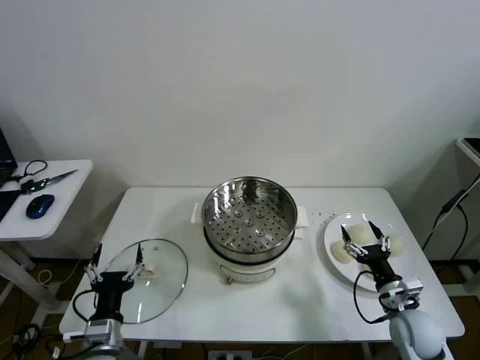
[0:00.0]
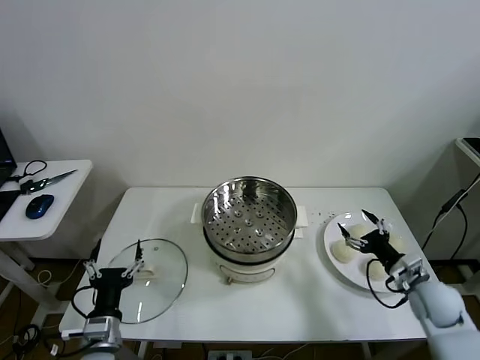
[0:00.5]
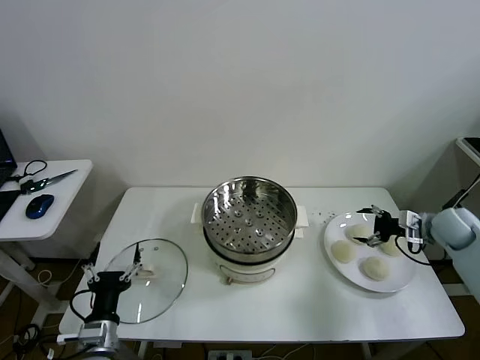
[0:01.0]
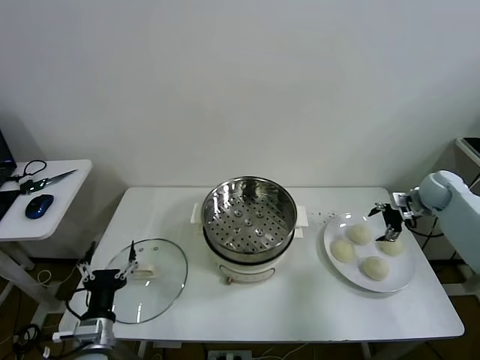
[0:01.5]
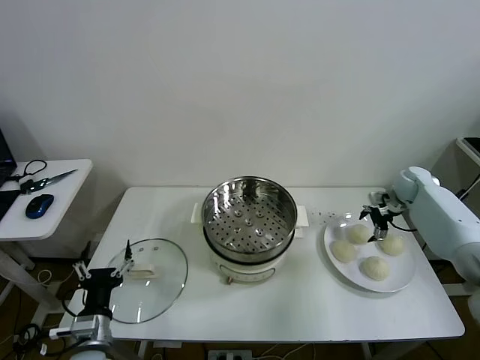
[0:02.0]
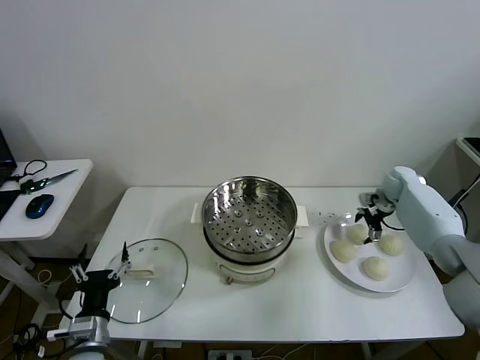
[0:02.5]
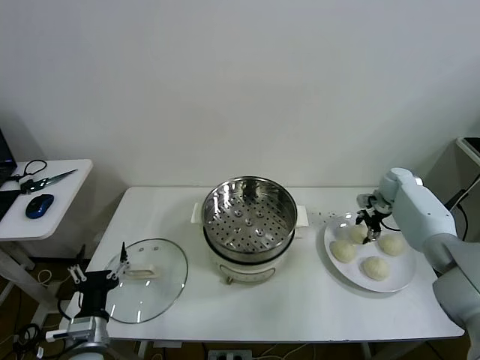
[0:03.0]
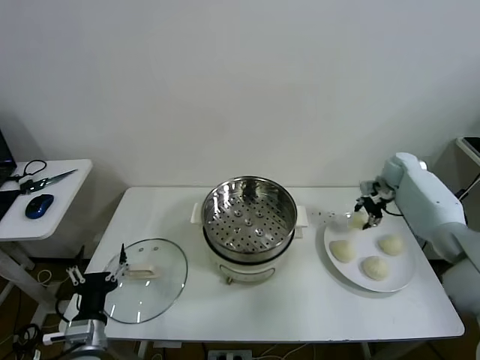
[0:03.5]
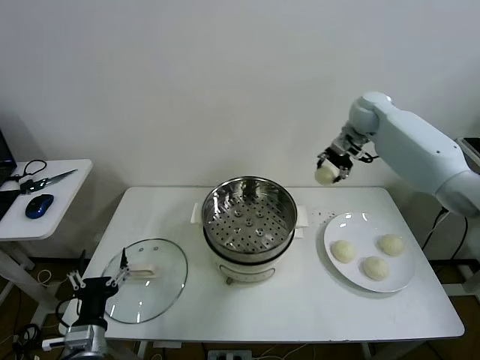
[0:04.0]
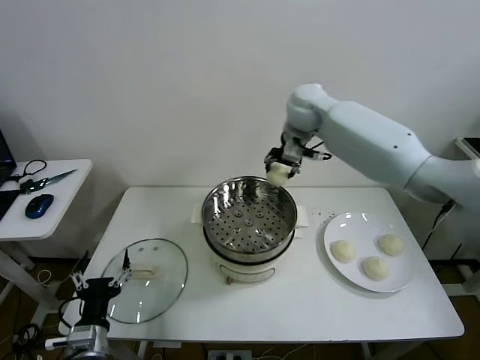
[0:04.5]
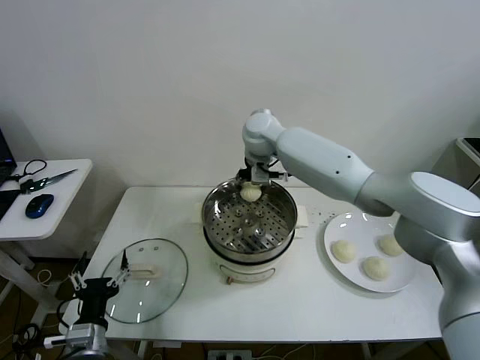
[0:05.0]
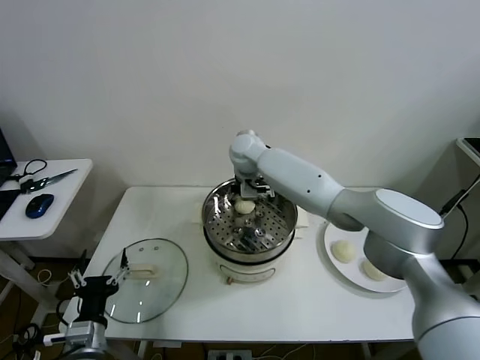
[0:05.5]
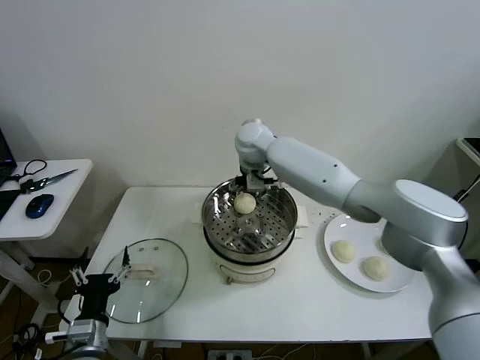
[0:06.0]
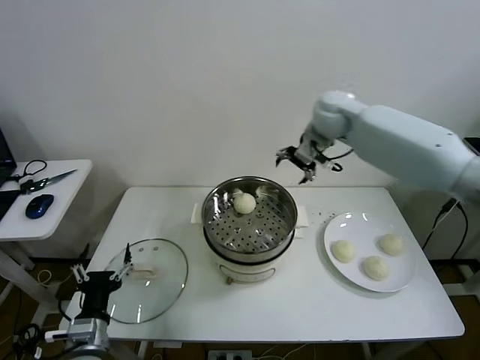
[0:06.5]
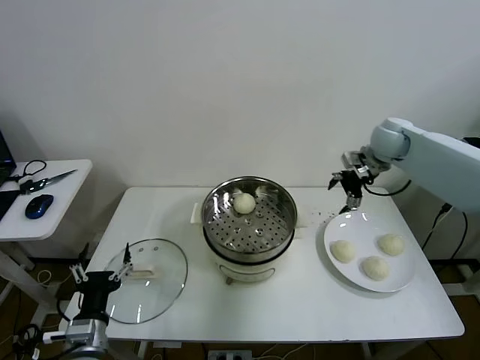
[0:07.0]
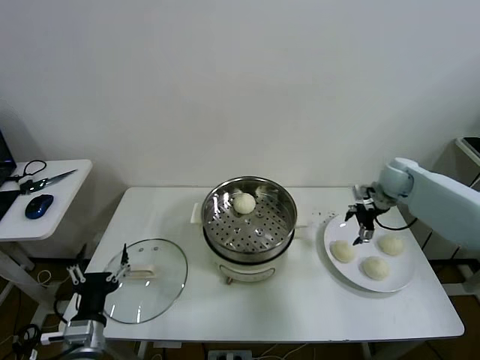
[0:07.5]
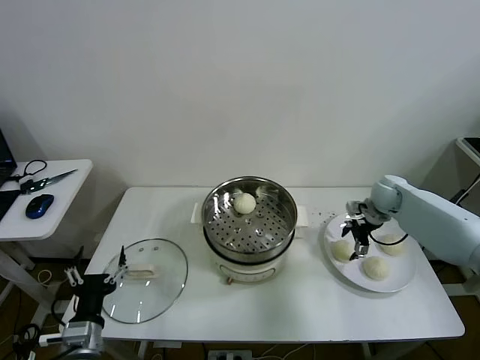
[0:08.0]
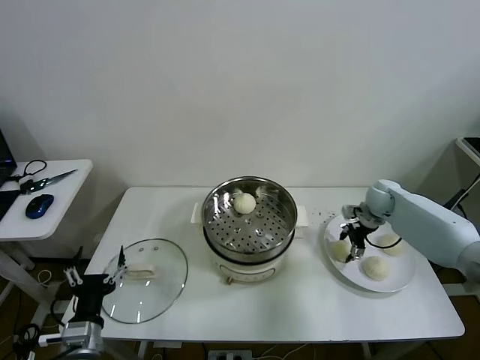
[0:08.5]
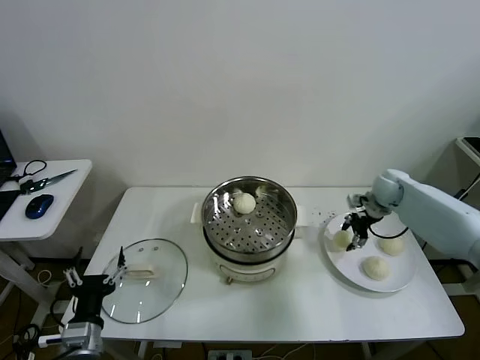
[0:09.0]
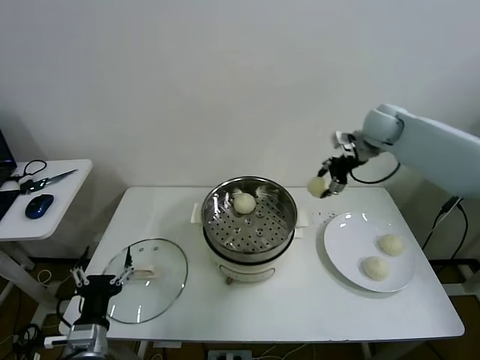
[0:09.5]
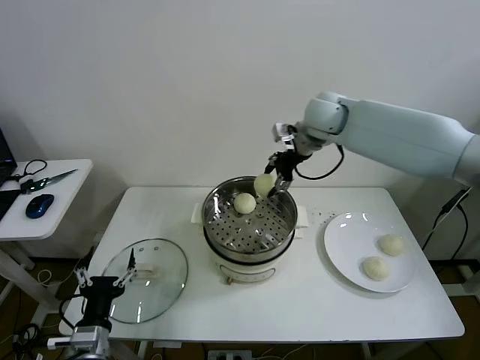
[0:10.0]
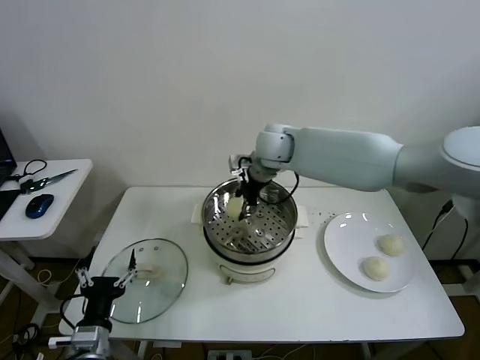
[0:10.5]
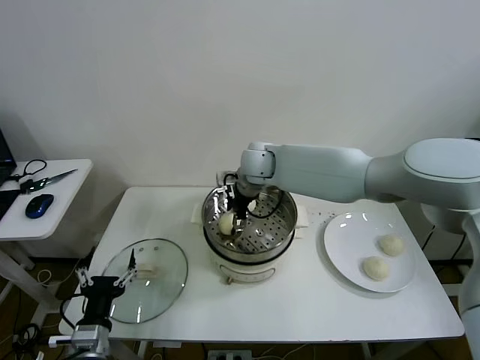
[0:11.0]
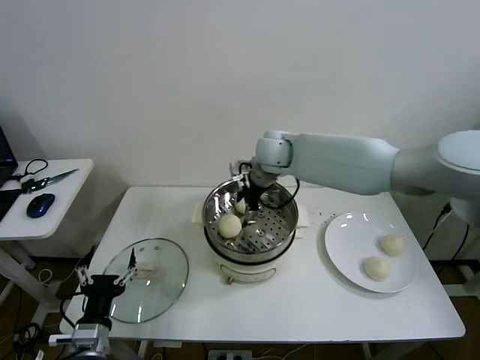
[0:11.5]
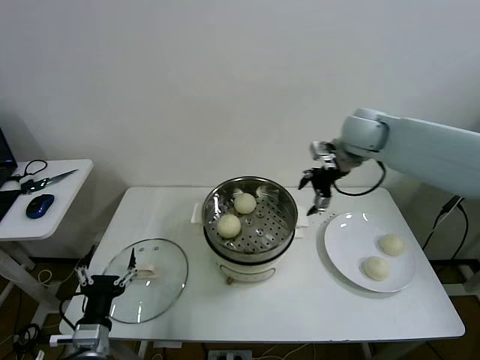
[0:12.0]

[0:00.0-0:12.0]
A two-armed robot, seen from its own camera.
Task of the whole recording: take steamed baozi put them in steamer then cover it.
Step, 0:00.0 to 0:03.0: Grasp the baozi in the plate with right gripper.
Step, 0:03.5 to 0:05.5: Place the baozi on the steamer with right gripper.
Step, 0:06.0 to 0:08.5: Grasp the baozi in the plate with right gripper.
Step, 0:09.0 to 0:11.0: Place the baozi on the steamer with right gripper.
0:02.0 to 0:04.0: The right gripper travels upward and to the left by approximately 30 cm, and closes.
0:04.0 to 0:06.0: The right gripper goes approximately 20 cm to the left, and opens its fingers.
0:06.0 to 0:08.0: The right gripper goes roughly 40 cm to the right and downward.
0:08.0 to 0:10.0: The right gripper heads to the left and upward, covering roughly 35 cm, and closes its fingers.
0:10.0 to 0:12.0: The right gripper travels to the right by about 15 cm, and opens up.

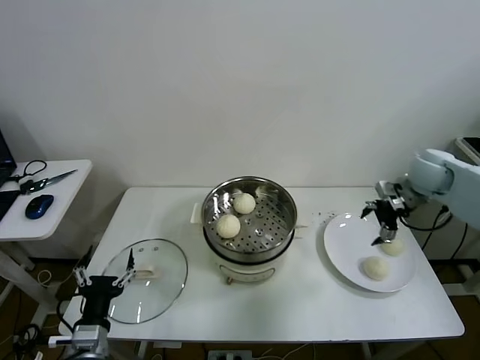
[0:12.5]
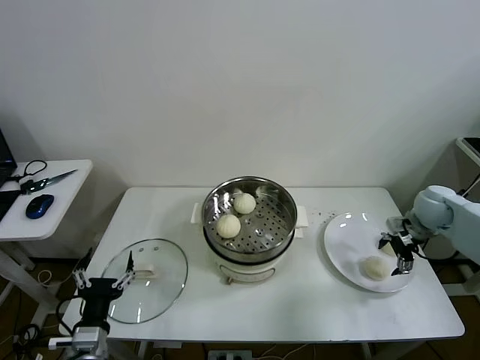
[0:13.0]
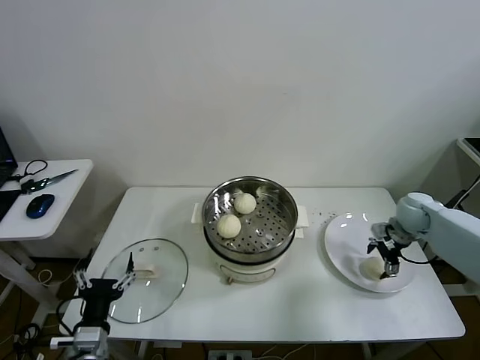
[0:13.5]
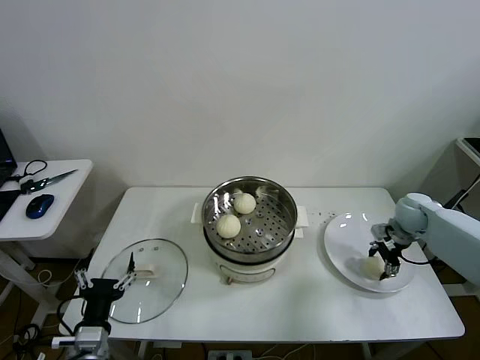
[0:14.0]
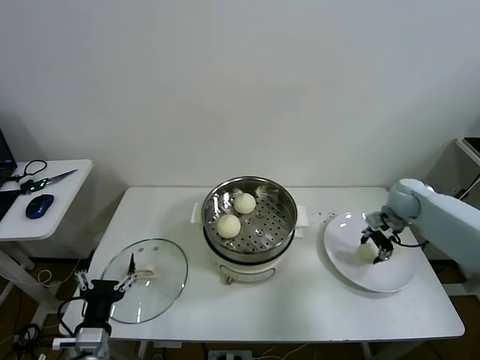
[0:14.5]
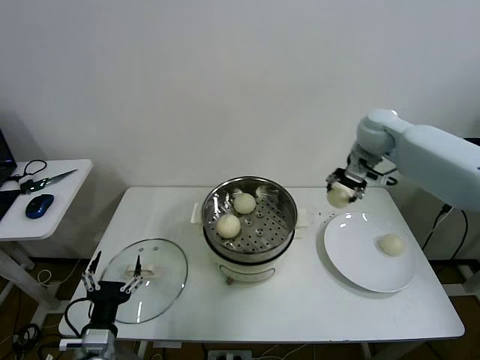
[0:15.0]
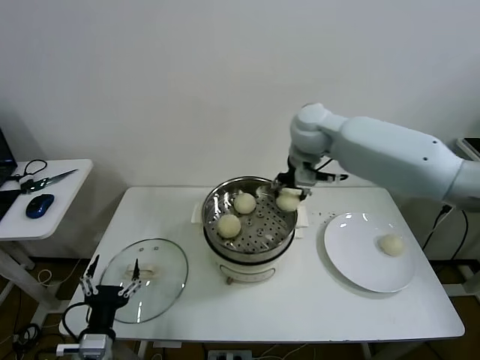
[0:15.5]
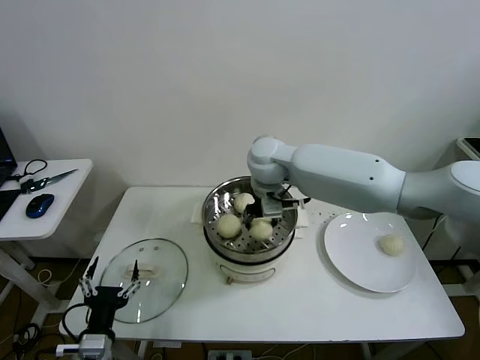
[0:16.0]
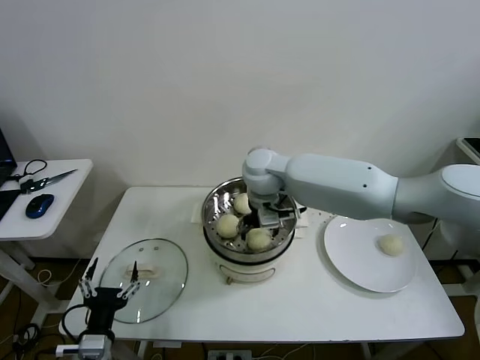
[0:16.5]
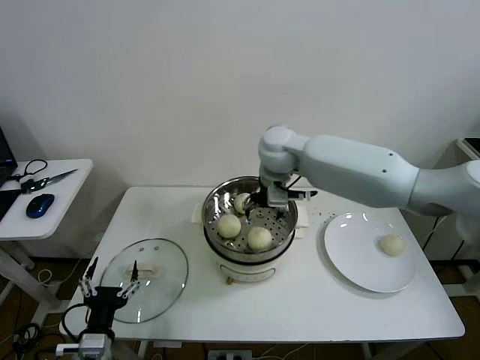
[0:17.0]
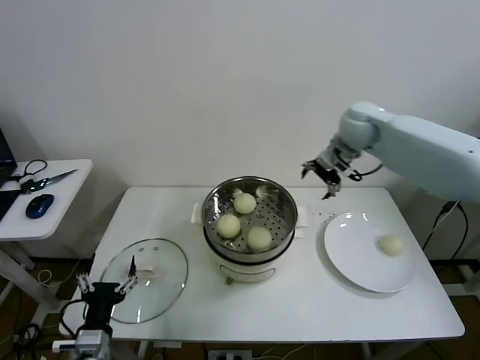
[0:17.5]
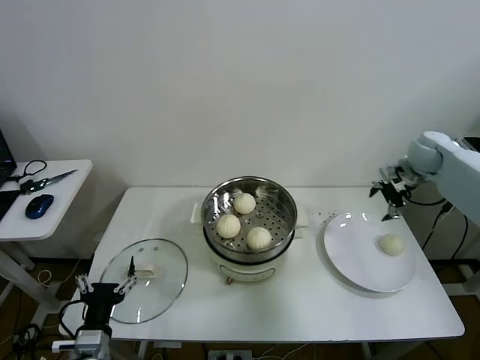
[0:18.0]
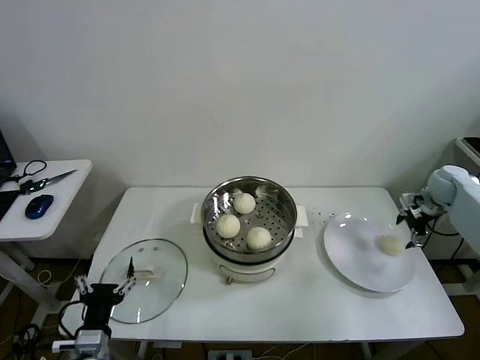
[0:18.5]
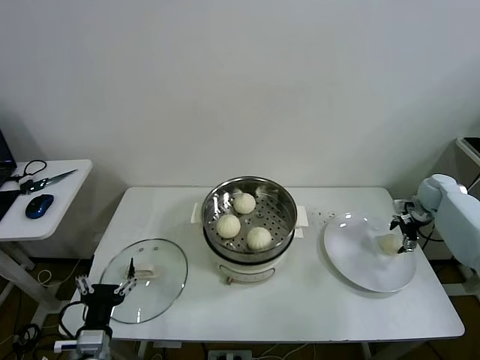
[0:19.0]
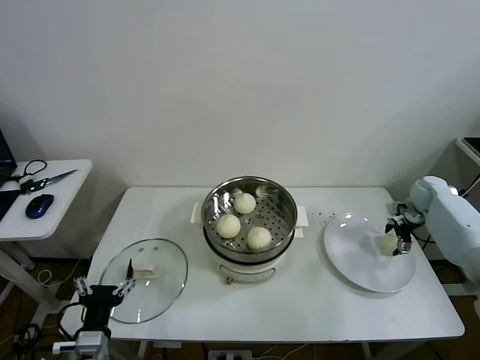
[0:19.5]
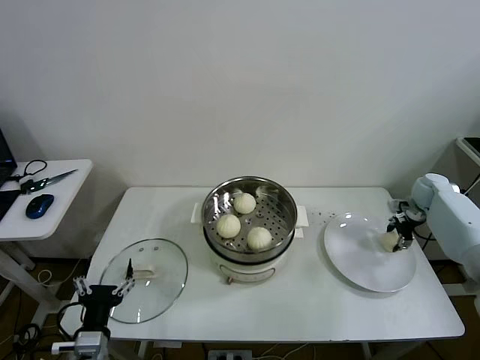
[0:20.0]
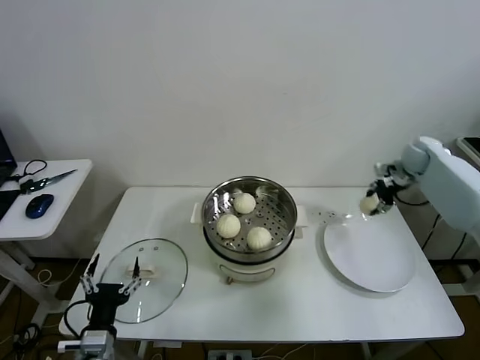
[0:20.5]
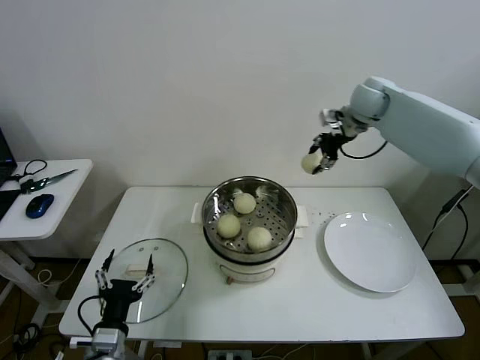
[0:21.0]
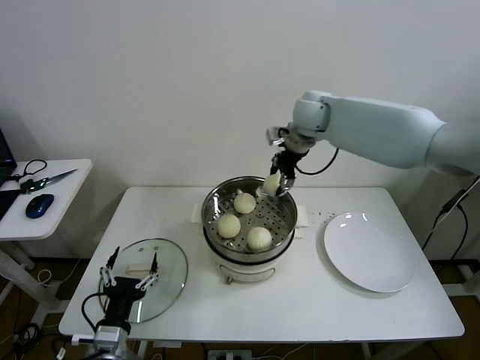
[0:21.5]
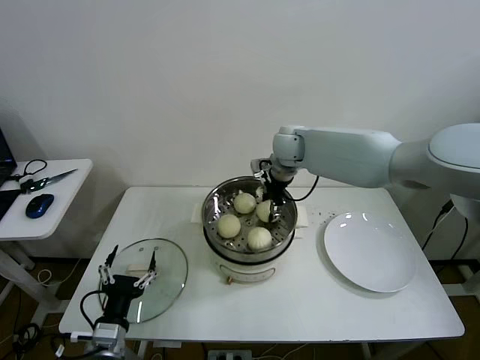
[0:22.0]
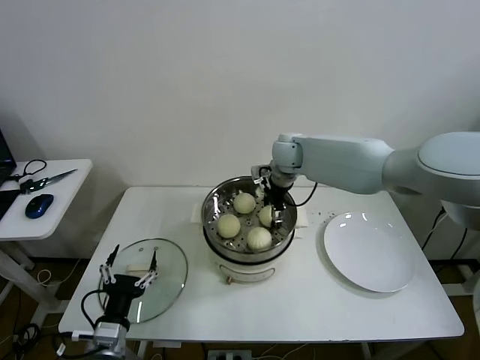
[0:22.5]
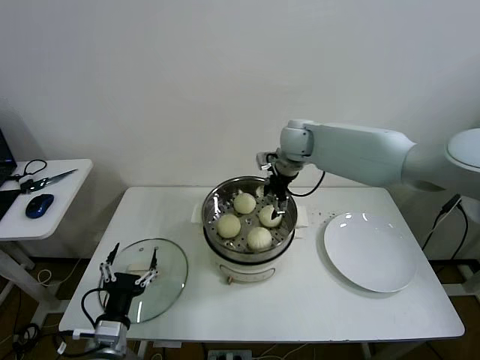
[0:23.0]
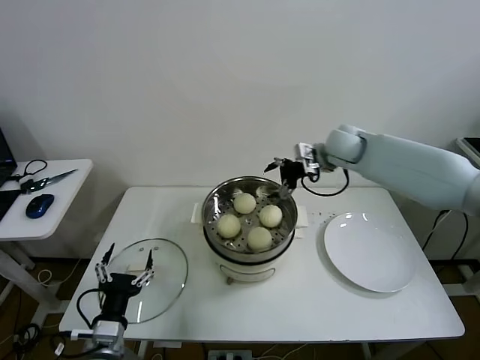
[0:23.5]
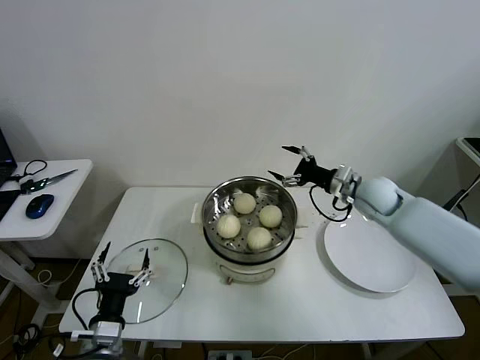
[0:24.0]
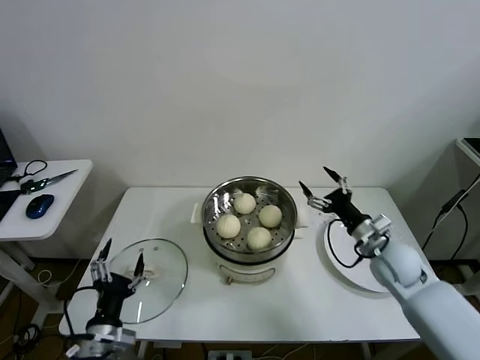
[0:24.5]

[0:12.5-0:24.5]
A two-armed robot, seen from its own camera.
Task of the whole recording: take steamed baozi put them in steamer then cover it.
Step, 0:12.5 to 0:14.0: Grasp the baozi in the plate with right gripper.
Step, 0:14.5 to 0:16.5: Place the baozi on the steamer with right gripper.
Step, 0:17.0 to 0:19.5: Grasp the baozi in the plate with right gripper.
Step, 0:20.0 to 0:22.5: Place the baozi on the steamer with right gripper.
0:12.5 to 0:14.5: The right gripper moves downward, about 10 cm, and closes.
0:14.5 to 0:16.5: The right gripper moves to the left, approximately 40 cm, and opens up.
0:16.5 to 0:18.5: The right gripper shifts approximately 50 cm to the right.
0:18.5 to 0:20.5: The right gripper travels to the left, forward and upward by about 10 cm, and closes.
0:20.5 to 0:22.5: The right gripper moves to the left, some 35 cm, and opens up.
0:22.5 to 0:24.5: The right gripper goes approximately 35 cm backward, to the right and downward, and opens its fingers.

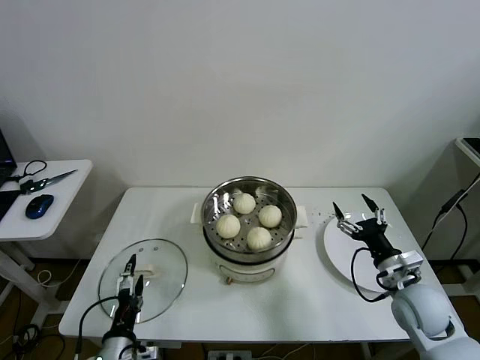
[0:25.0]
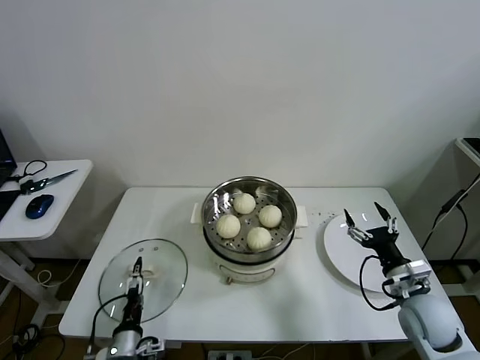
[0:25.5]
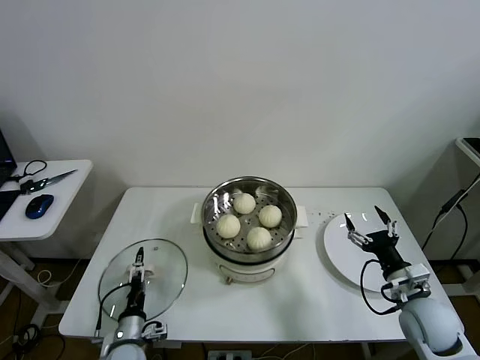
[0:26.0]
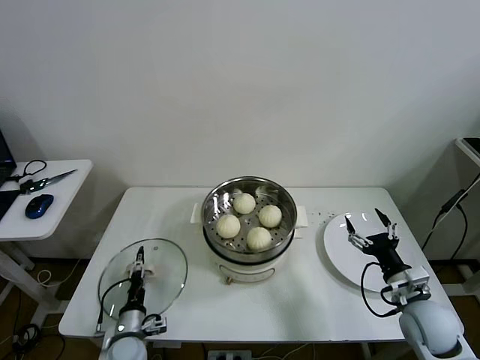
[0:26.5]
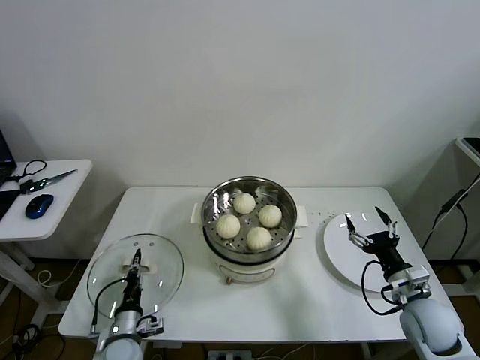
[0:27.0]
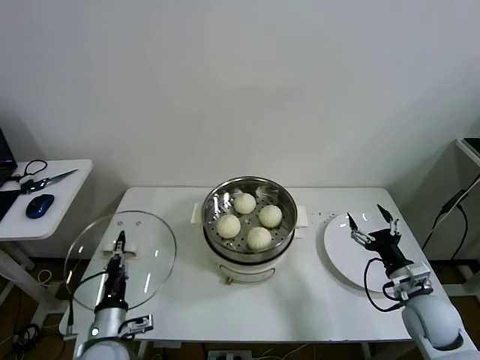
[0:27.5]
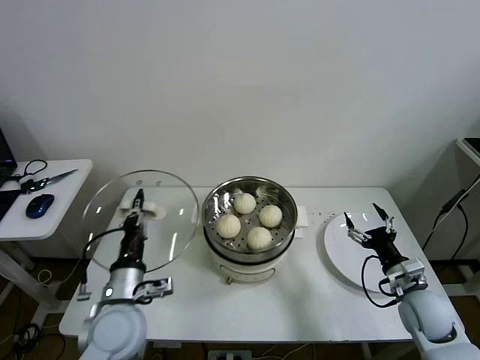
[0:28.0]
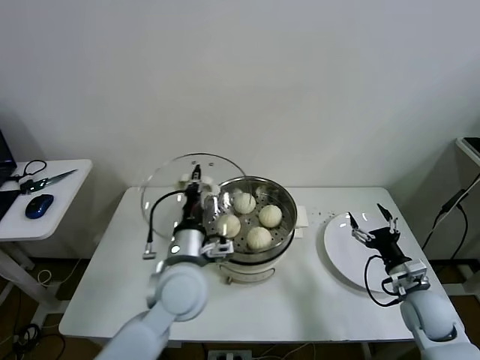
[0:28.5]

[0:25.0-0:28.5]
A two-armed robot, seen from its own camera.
Task of the whole recording: take steamed baozi put them in steamer then cover it.
0:25.0 to 0:27.0: The left gripper is displaced downward and forward by about 15 cm, and closes its fingers.
0:27.0 to 0:28.5: The left gripper heads upward and to the right, covering some 30 cm.
